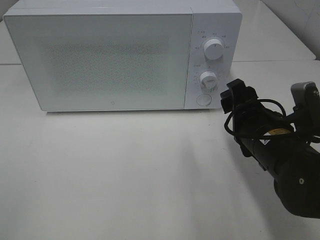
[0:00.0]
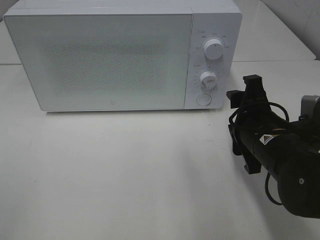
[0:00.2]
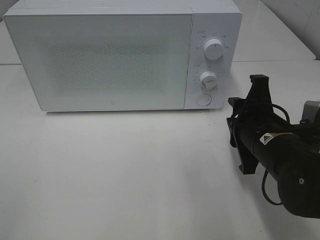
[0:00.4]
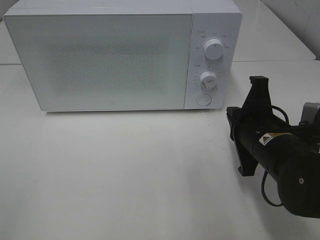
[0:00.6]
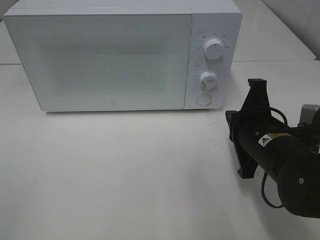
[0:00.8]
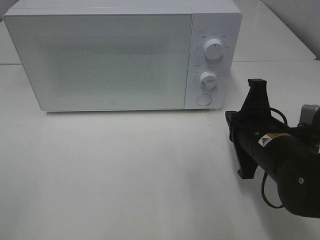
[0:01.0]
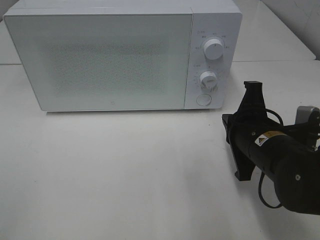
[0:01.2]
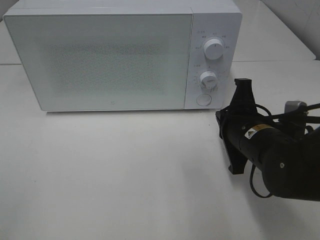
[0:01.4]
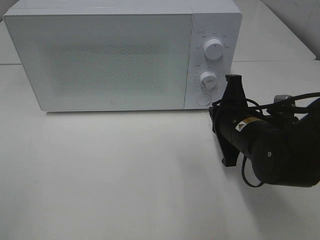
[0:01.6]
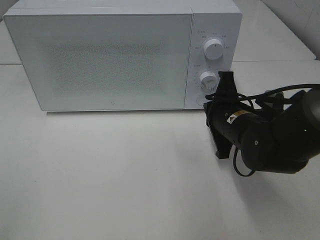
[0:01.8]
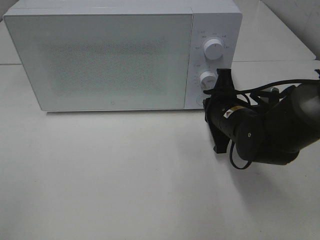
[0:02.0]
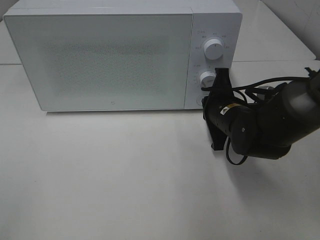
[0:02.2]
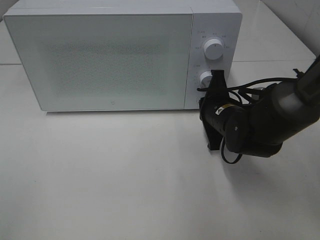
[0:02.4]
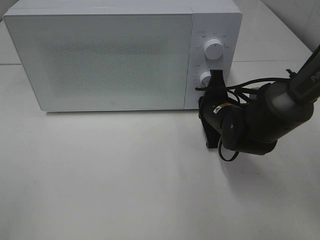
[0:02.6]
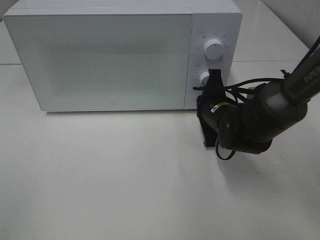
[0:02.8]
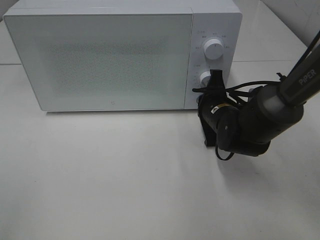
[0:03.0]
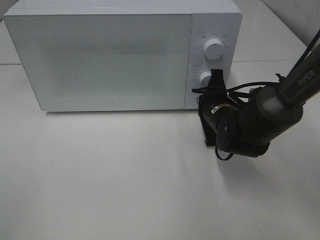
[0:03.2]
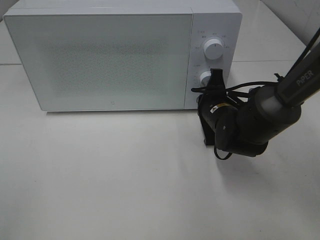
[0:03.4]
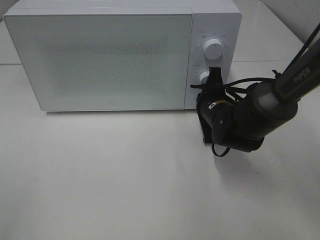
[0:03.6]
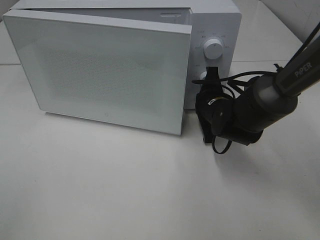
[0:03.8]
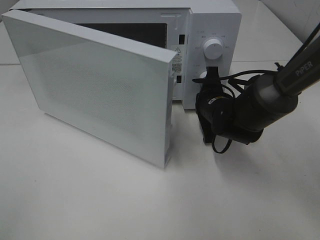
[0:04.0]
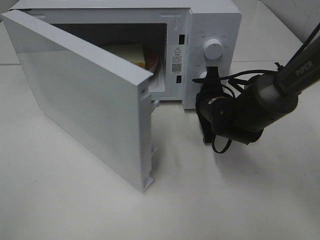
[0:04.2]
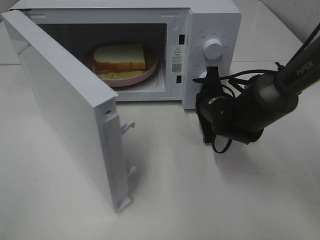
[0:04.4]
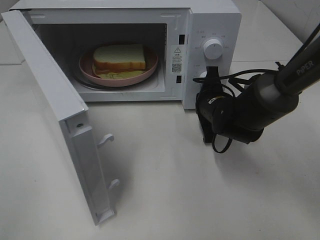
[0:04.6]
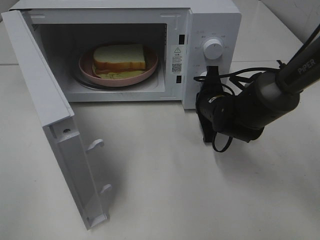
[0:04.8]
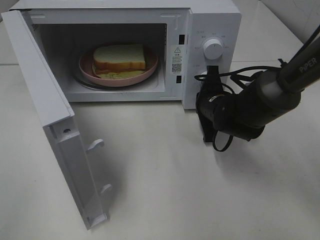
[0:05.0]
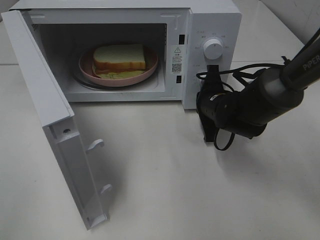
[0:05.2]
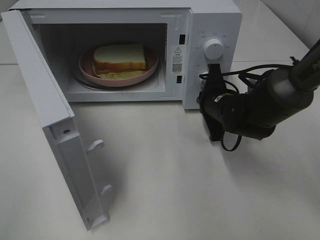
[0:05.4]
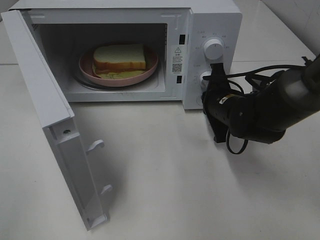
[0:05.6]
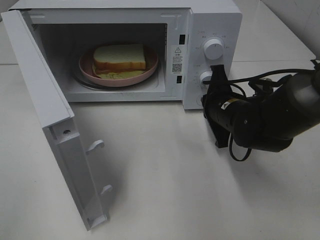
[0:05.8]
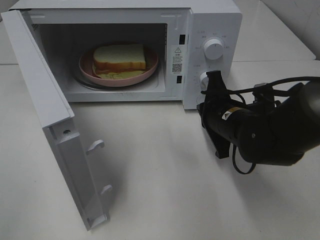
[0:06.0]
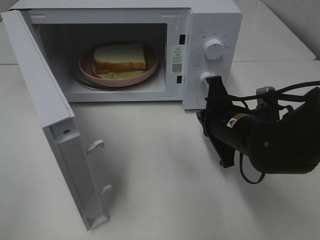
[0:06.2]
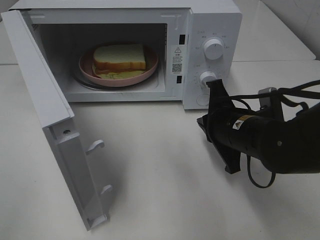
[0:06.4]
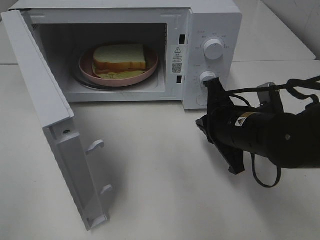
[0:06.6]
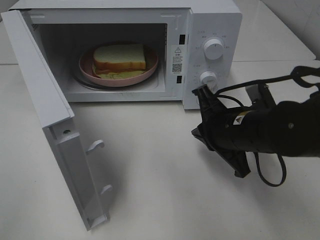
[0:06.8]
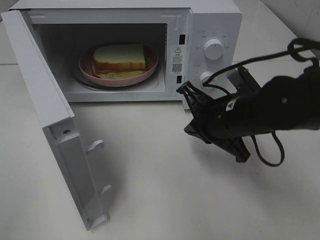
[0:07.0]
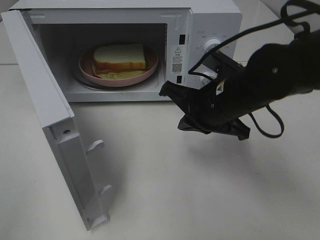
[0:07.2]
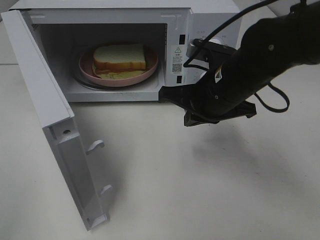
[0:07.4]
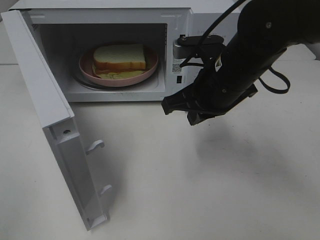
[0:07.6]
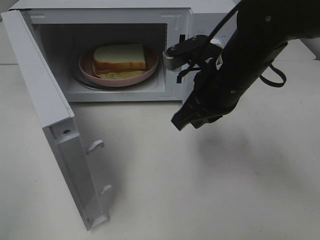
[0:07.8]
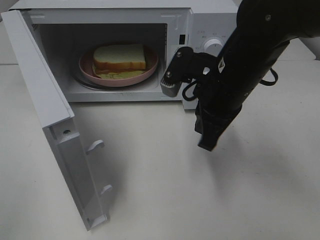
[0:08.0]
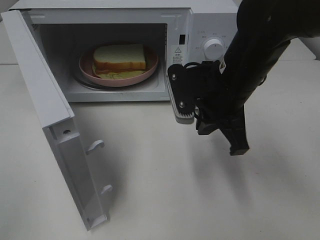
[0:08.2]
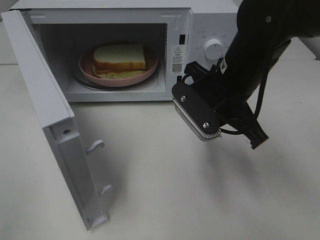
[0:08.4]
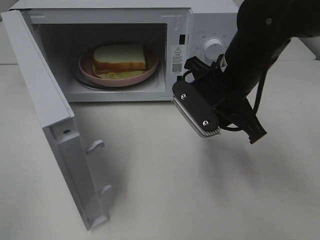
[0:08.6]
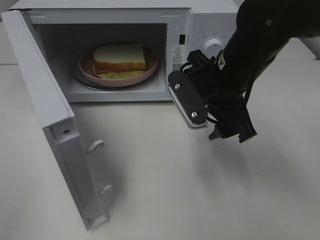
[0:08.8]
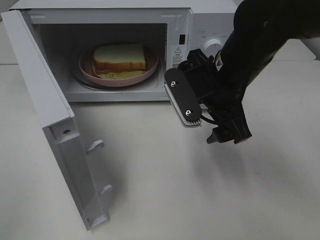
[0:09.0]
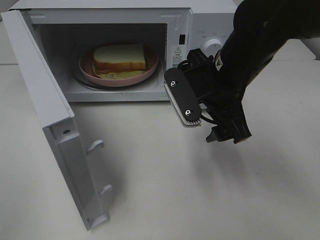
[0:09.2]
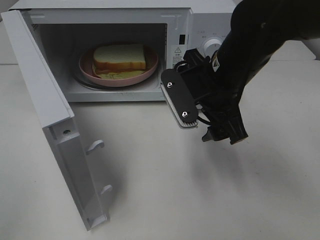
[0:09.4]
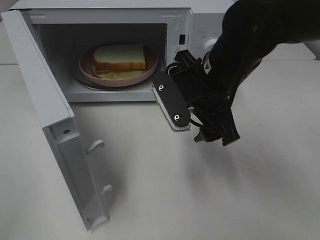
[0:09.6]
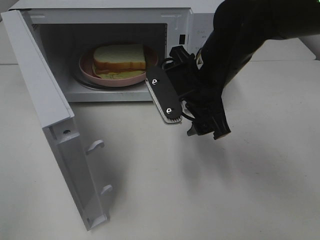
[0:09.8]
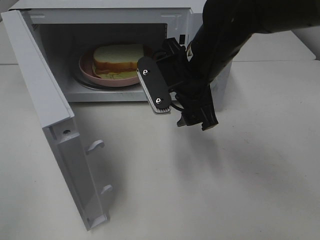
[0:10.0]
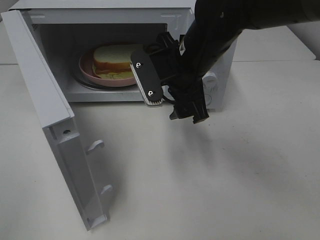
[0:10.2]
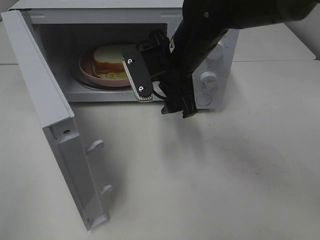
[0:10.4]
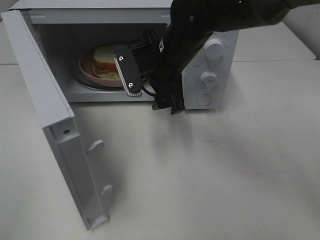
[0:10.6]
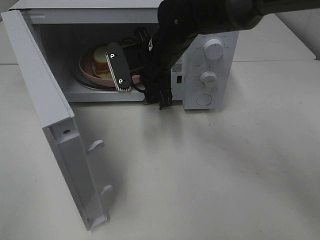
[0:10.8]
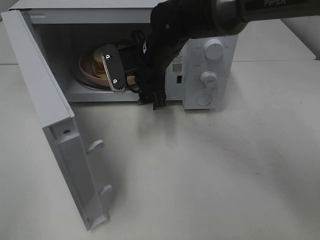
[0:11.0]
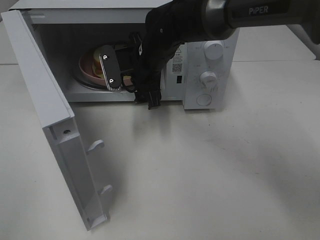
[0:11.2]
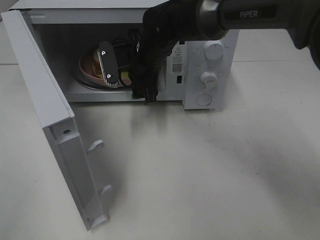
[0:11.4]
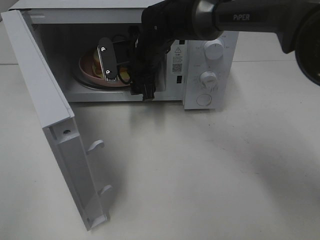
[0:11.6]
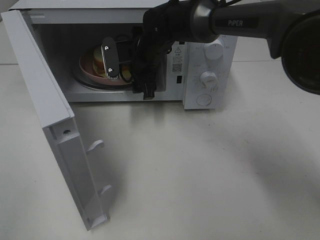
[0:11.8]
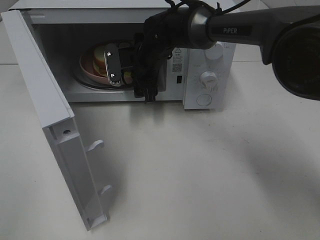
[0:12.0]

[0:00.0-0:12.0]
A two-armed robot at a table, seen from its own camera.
Task of the whole recording: Heat Sandwich.
Step, 0:00.0 to 0:05.8: Right hand: press the switch.
0:00.0 to 0:01.6: The right gripper ends up roughly 5 cm from where it was, and closes its fingers.
0:01.6 to 0:03.0: The right gripper travels forward by roughly 10 cm.
0:04.4 to 0:06.0: The right gripper is displaced backward by approximately 5 cm.
0:06.0 to 0:07.6: The right gripper moves upward, about 10 cm.
0:07.6 to 0:09.0: The right gripper opens its fingers.
0:09.0 to 0:10.4: The right gripper travels to the left and forward by roughly 10 cm.
0:10.4 to 0:12.0: The right gripper shifts some 15 cm forward and downward.

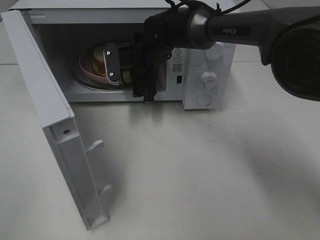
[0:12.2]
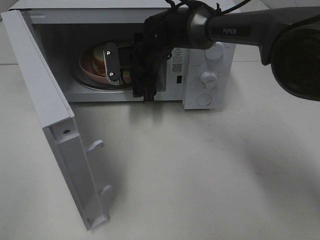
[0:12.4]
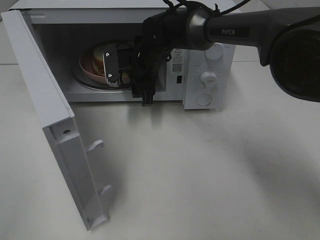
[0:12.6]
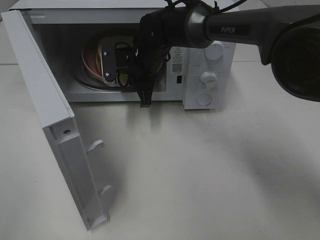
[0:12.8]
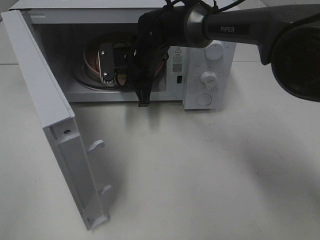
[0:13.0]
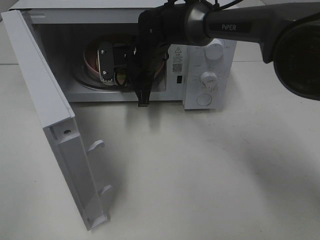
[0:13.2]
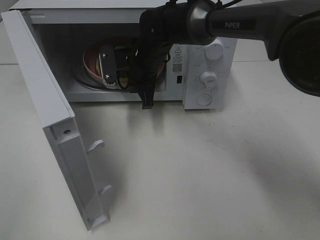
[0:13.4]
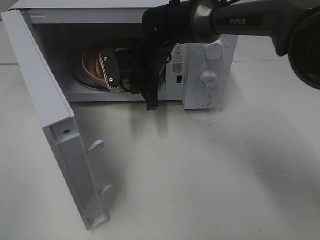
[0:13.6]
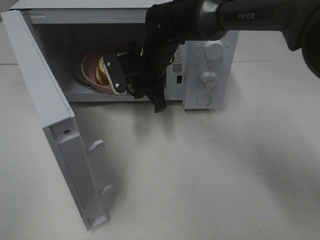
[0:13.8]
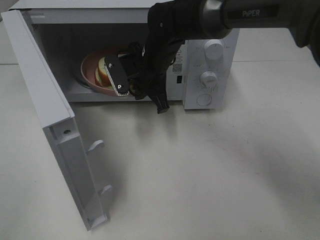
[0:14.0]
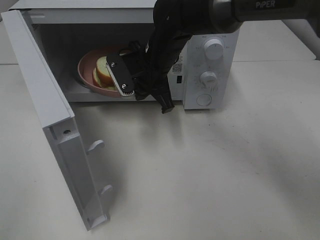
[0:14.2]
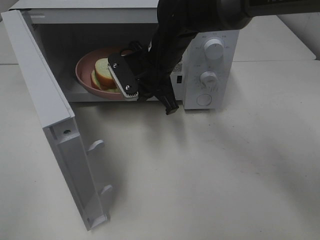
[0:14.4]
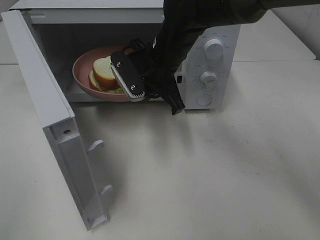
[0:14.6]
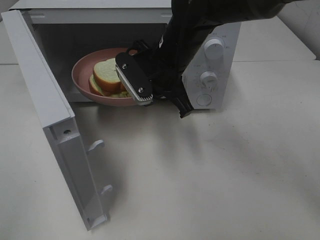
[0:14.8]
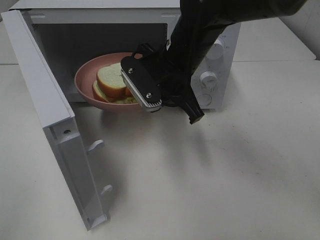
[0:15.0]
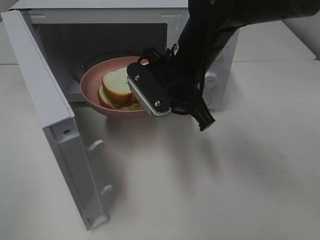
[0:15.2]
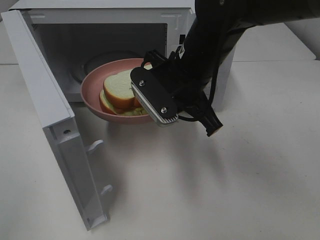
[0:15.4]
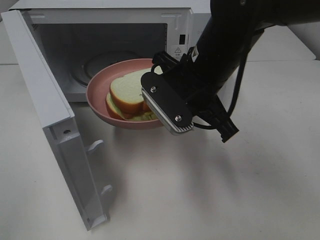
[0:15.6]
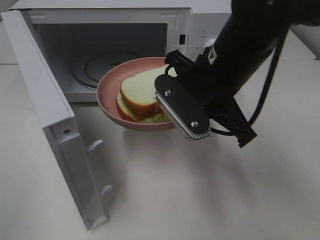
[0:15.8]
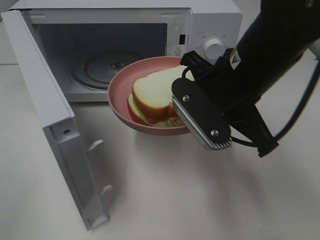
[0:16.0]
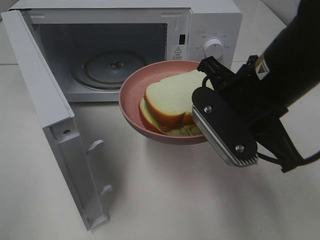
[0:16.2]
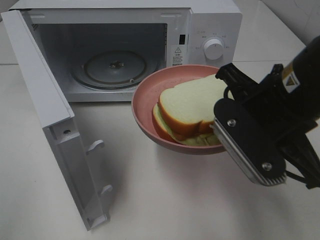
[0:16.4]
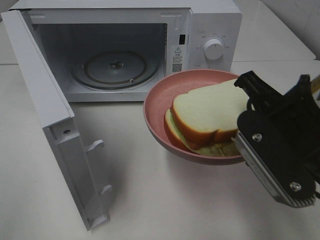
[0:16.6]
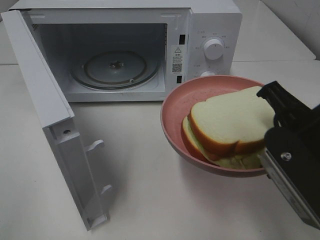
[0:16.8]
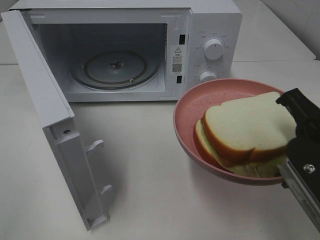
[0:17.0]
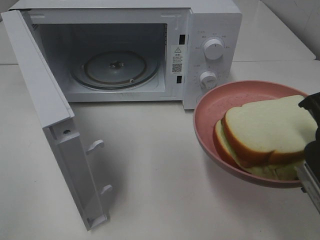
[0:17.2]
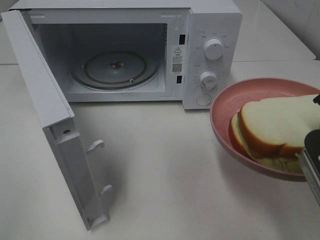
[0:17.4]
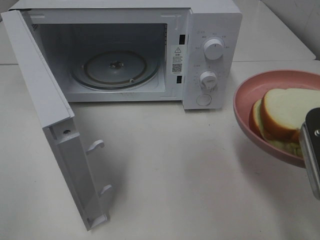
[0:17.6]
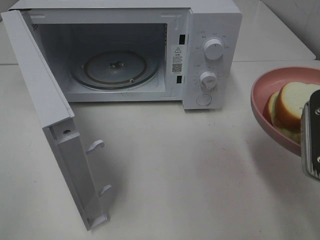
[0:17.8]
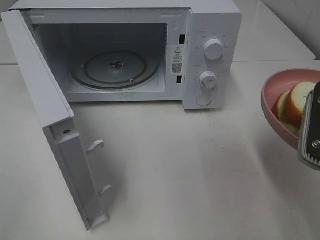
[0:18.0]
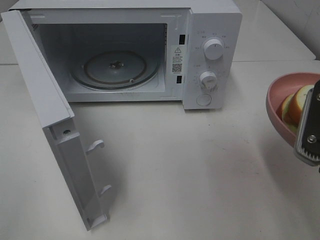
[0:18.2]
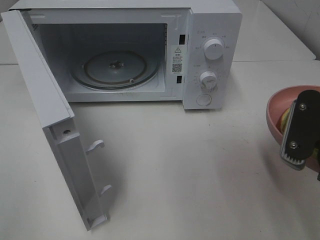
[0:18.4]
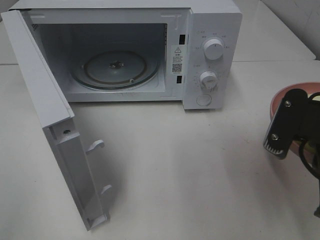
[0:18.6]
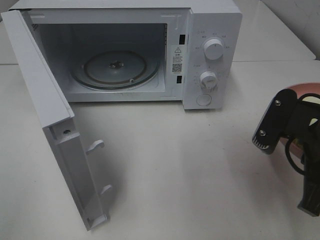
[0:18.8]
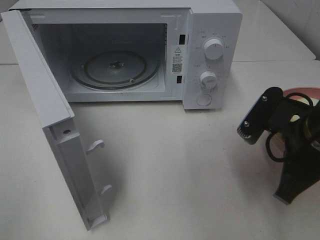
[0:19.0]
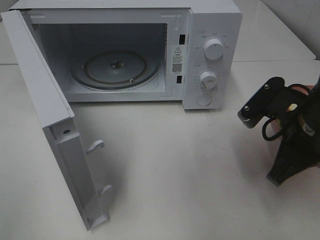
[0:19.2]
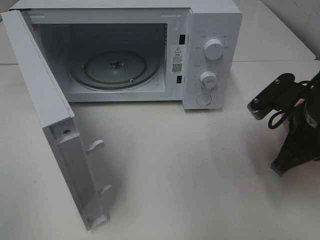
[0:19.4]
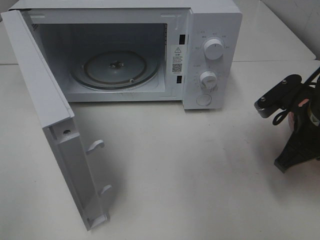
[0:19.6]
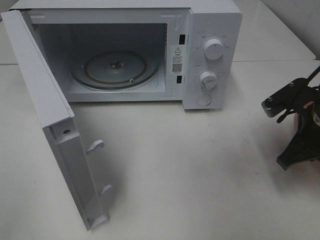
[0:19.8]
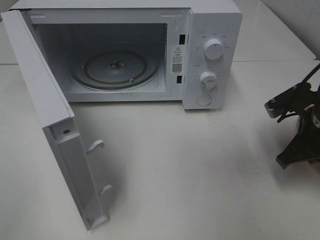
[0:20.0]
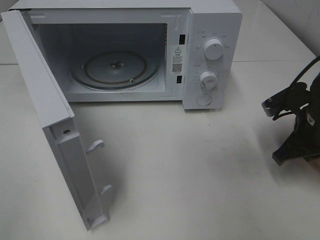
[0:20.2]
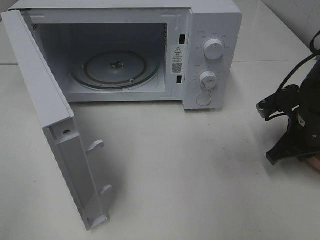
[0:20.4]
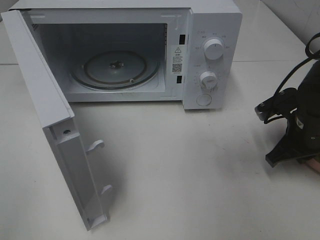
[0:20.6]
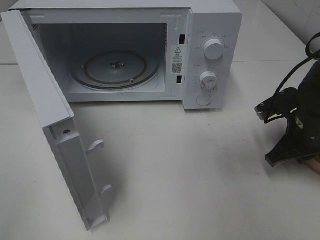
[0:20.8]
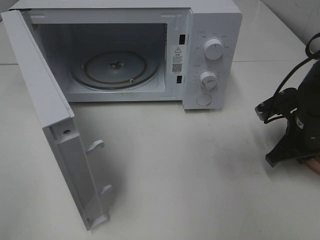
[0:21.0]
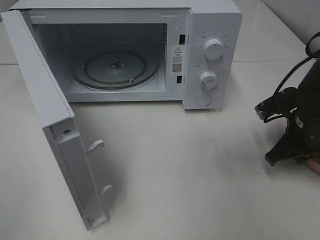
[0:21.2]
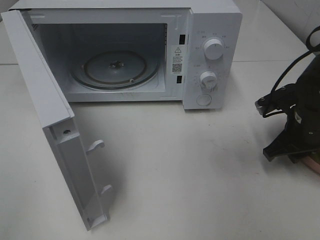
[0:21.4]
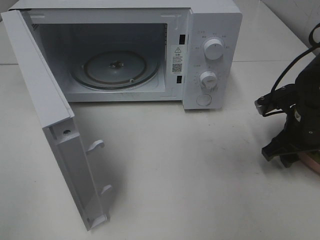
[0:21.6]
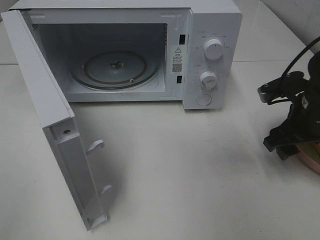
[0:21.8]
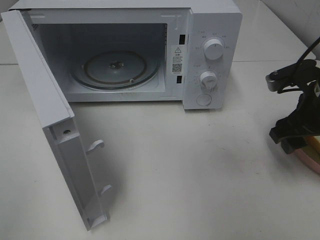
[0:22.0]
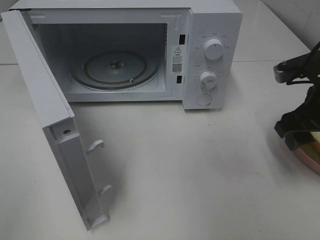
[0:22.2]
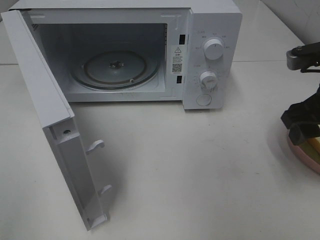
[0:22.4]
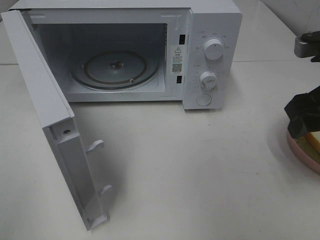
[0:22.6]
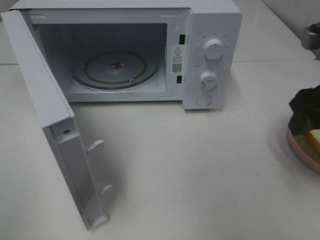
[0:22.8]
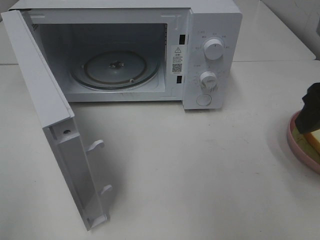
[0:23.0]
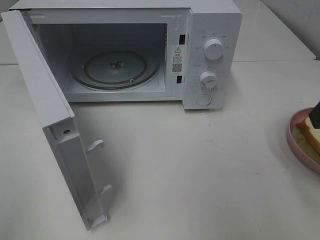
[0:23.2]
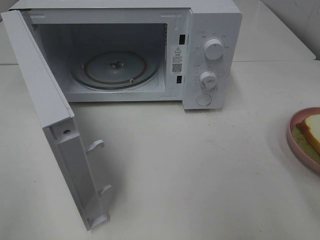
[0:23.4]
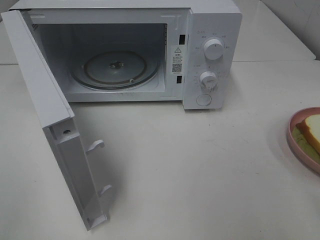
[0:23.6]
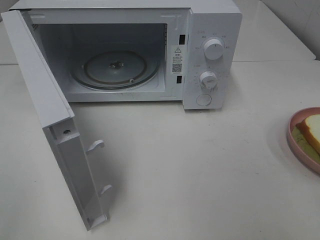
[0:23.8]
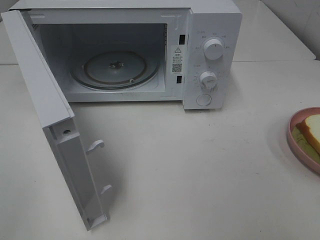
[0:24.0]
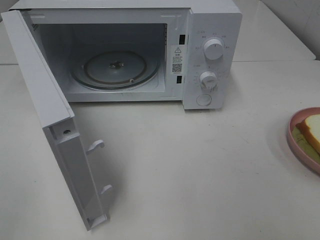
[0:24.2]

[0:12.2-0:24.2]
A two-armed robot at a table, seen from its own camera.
Task of the whole recording: Heat Sandwich.
Step, 0:13.2 to 0:22.0: Right hand: place the plate on the table.
0:12.2 to 0:13.8: The right gripper closes its fingers.
0:13.8 to 0:15.2: The right gripper is displaced backward and upward by about 10 cm.
0:15.2 to 0:16.6: The right gripper moves backward and to the right, approximately 20 cm.
0:16.6 to 0:18.2: The right gripper goes roughly 5 cm to the right.
0:18.2 to 0:19.8: The right gripper travels forward and downward by roughly 15 cm.
0:19.8 to 0:21.2: The right gripper changes place by some 5 cm.
0:21.2 to 0:22.6: The right gripper moves upward and backward, some 15 cm, and opens.
0:22.6 to 0:24.2: The right gripper moves backward, approximately 20 cm.
